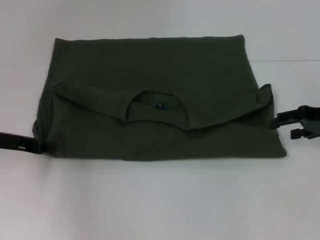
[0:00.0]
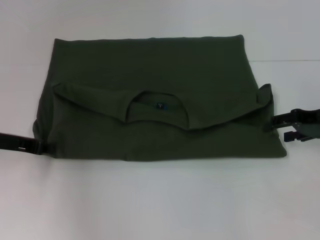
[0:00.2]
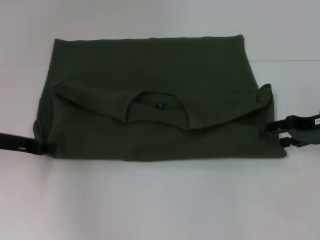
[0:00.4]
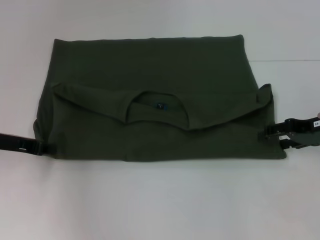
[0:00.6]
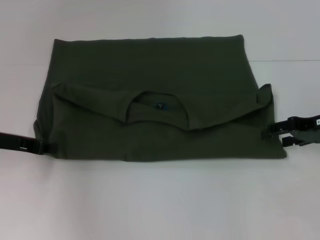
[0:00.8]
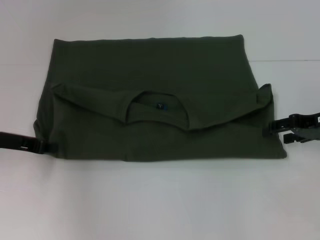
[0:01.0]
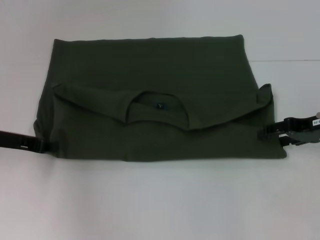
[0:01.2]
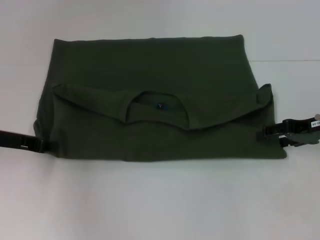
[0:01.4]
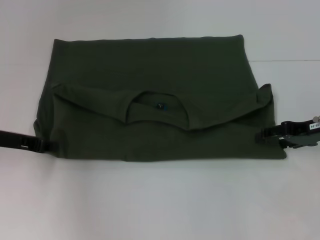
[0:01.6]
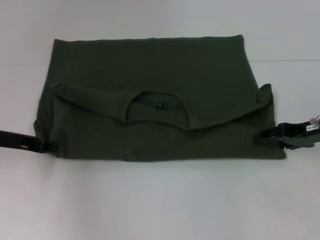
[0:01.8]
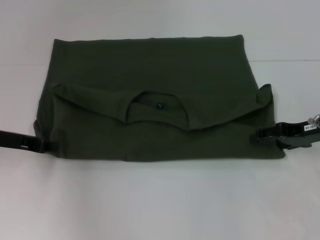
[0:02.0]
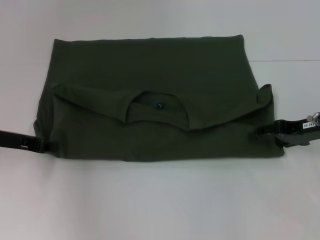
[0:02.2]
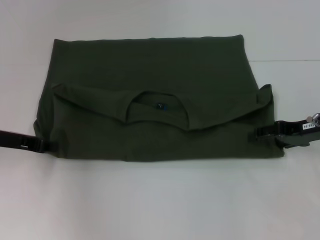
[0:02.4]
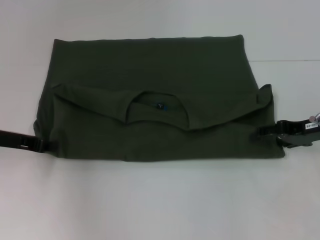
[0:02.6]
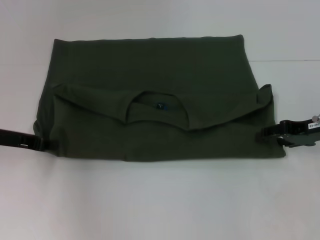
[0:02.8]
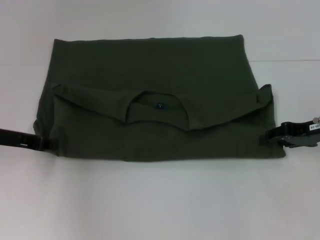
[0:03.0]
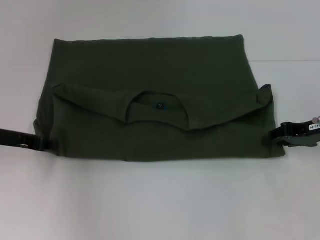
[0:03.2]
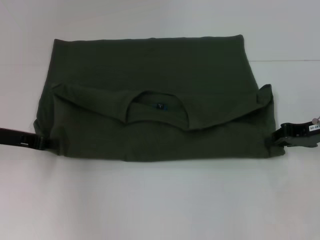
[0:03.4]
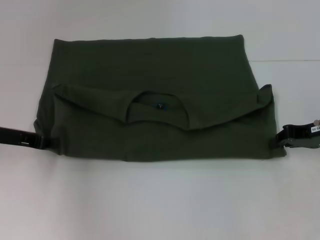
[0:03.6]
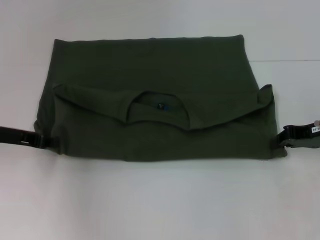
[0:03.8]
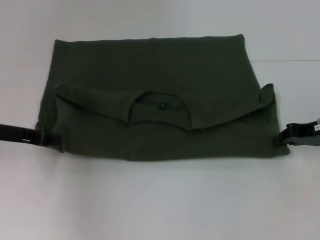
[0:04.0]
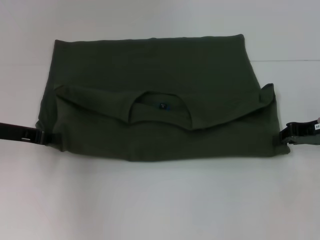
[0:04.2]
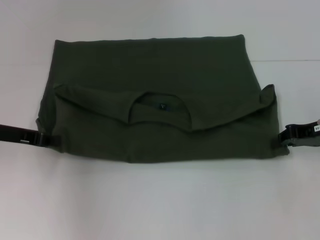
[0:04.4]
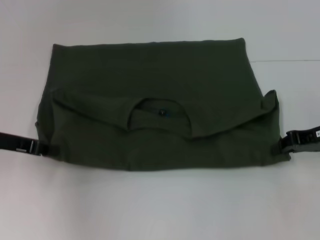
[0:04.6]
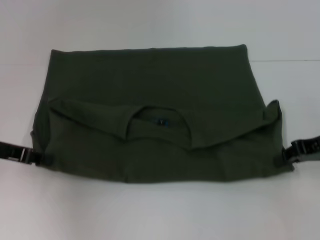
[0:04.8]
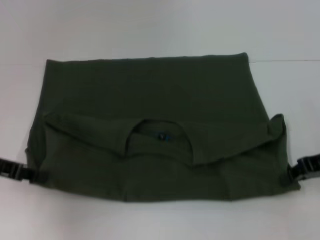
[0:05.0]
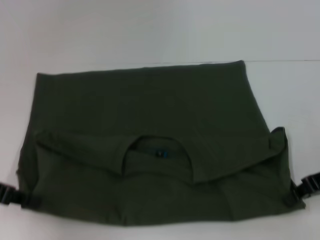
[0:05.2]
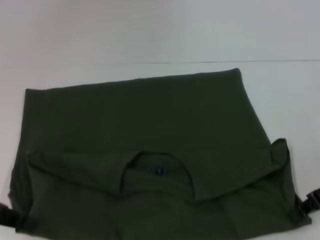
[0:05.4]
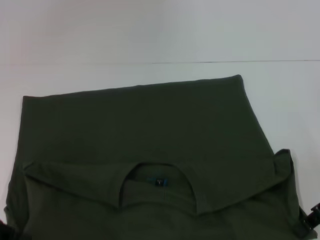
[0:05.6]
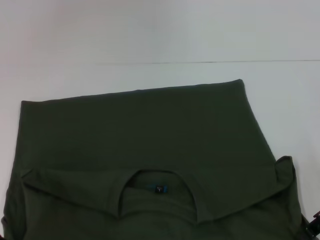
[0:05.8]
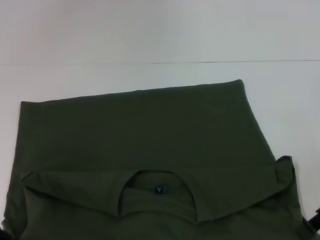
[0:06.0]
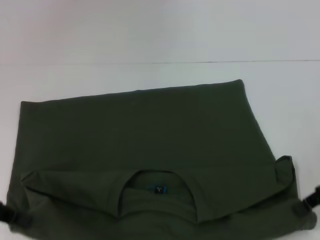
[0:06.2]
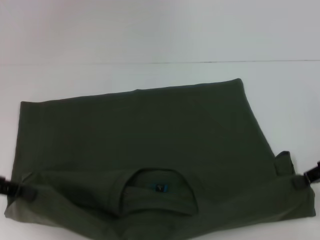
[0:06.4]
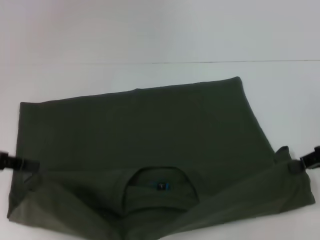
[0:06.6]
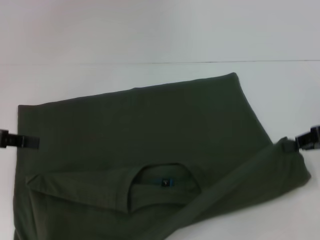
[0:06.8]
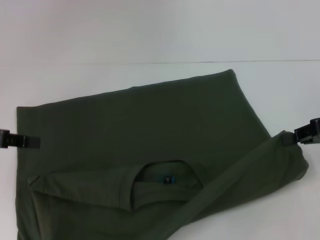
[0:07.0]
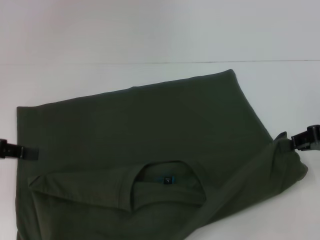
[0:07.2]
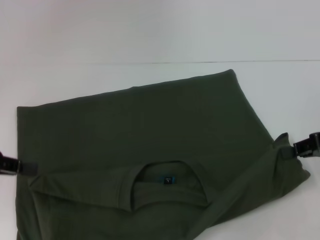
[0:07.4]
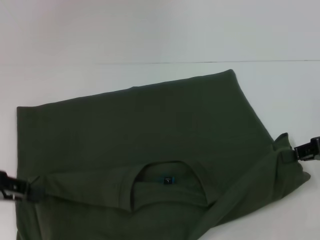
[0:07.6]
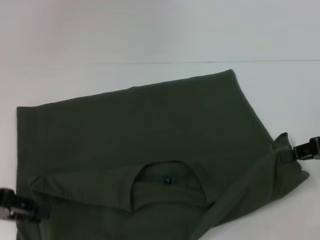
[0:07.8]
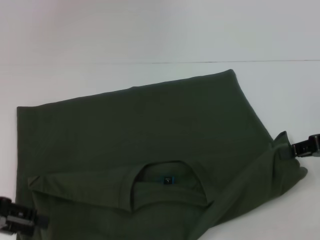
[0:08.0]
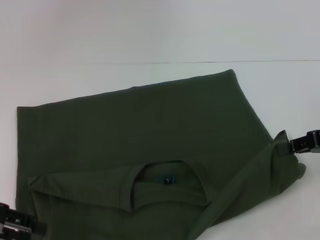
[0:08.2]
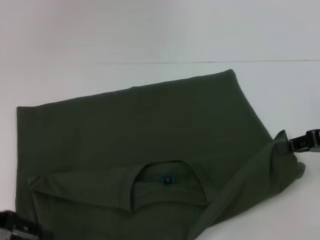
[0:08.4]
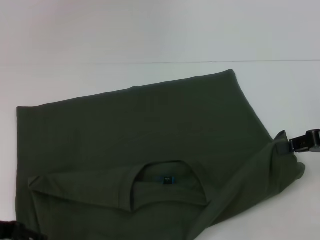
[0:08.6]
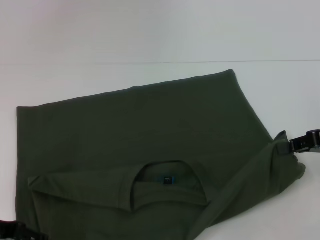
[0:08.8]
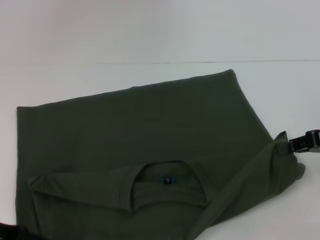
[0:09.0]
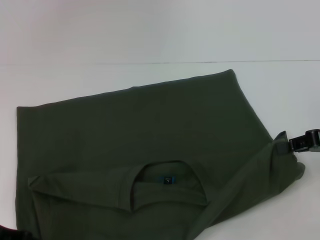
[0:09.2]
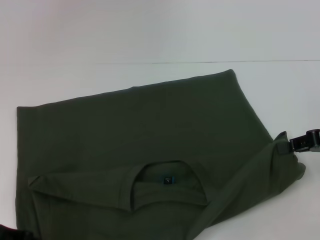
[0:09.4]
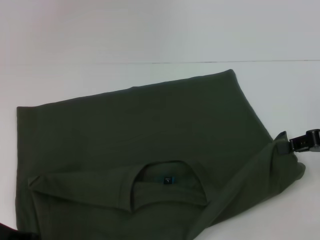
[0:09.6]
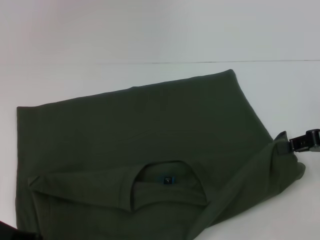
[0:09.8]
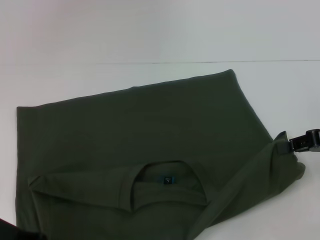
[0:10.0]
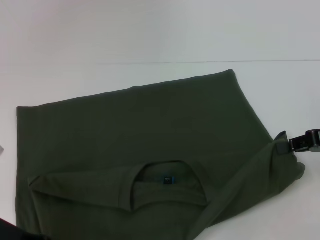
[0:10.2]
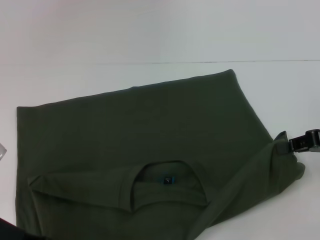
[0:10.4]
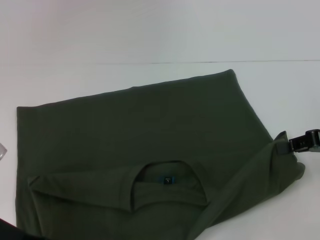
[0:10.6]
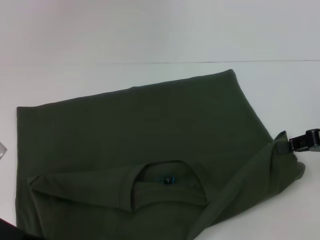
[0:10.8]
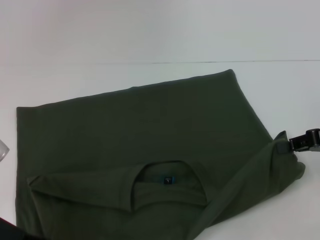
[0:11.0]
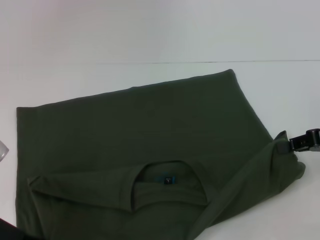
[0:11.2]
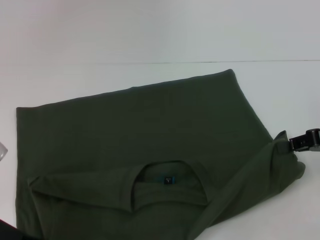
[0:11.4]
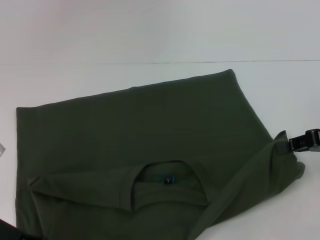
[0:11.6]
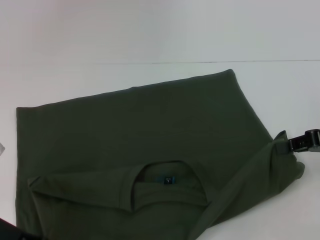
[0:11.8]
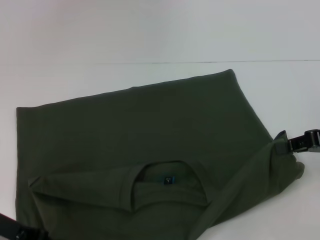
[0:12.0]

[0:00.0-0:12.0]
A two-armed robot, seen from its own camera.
Step, 0:00.0 to 0:05.8: Pull the clothes with your left hand.
Step, 0:00.0 to 0:05.8: Pull the clothes with your right hand.
0:00.0 to 0:01.6: The grippers stay close to where they were, moving slightly.
0:01.6 to 0:03.0: Neither gripper changes place.
0:03.0 to 0:04.4: The right gripper closes up.
0:04.4 to 0:06.0: Both grippers travel together backward, about 5 cm.
0:07.6 to 0:09.0: The left gripper ends up some 5 cm from where it was, and opens up.

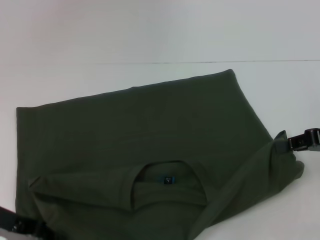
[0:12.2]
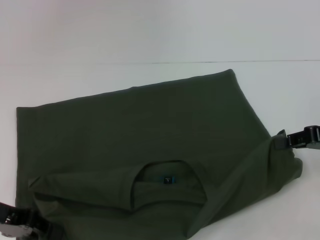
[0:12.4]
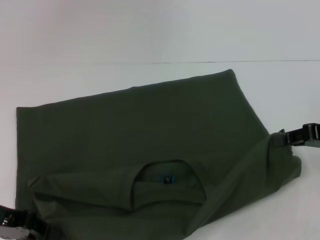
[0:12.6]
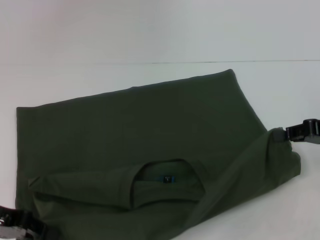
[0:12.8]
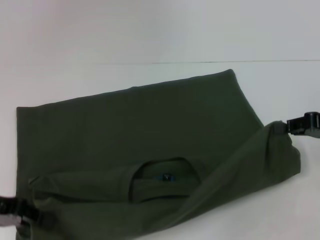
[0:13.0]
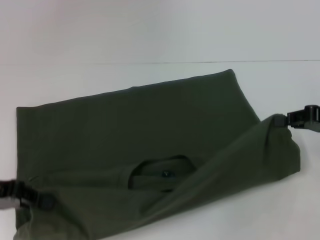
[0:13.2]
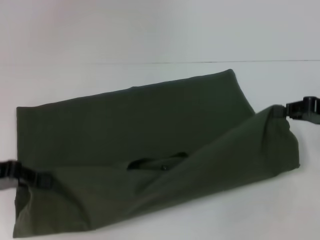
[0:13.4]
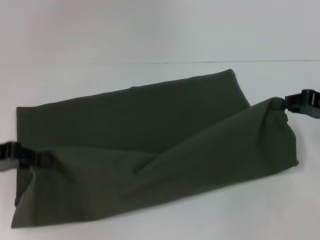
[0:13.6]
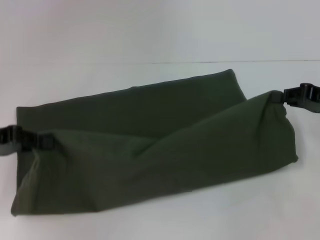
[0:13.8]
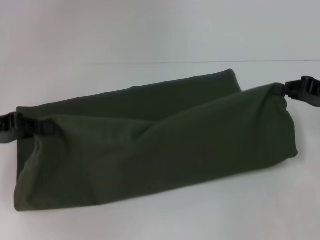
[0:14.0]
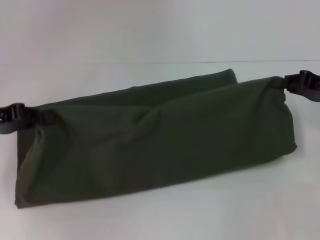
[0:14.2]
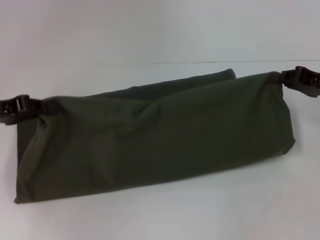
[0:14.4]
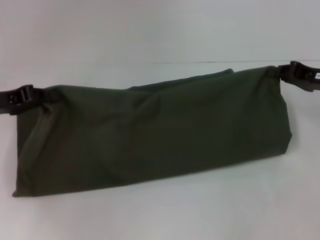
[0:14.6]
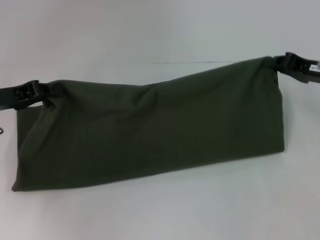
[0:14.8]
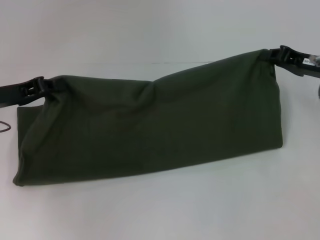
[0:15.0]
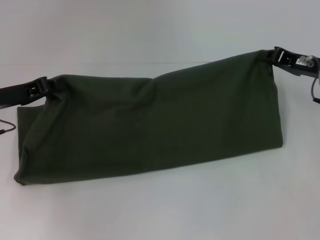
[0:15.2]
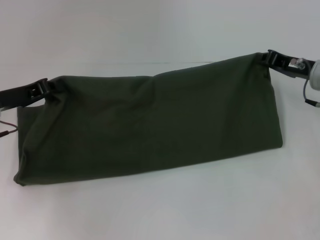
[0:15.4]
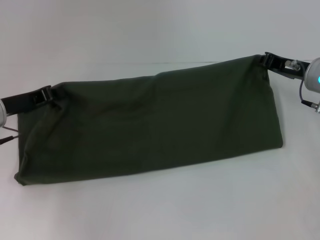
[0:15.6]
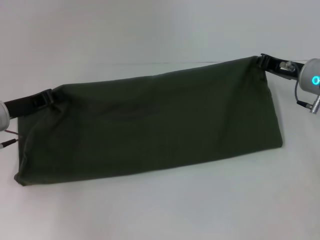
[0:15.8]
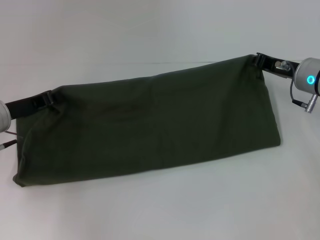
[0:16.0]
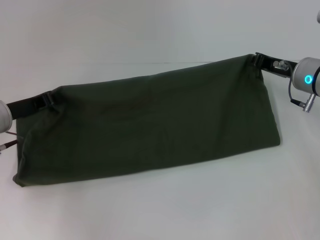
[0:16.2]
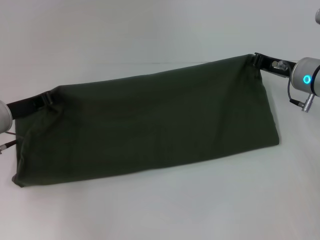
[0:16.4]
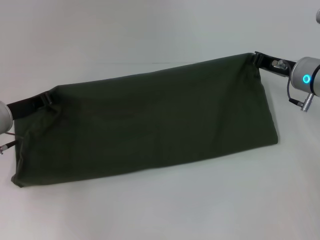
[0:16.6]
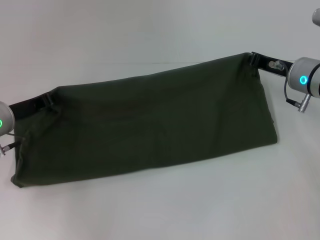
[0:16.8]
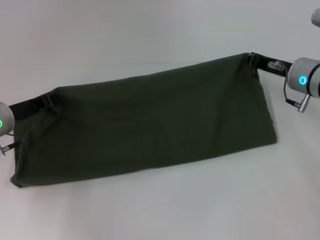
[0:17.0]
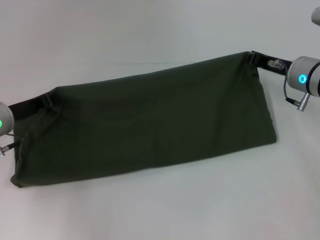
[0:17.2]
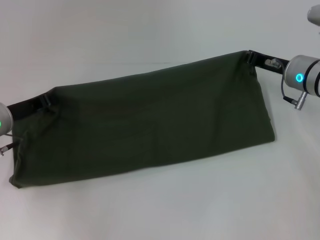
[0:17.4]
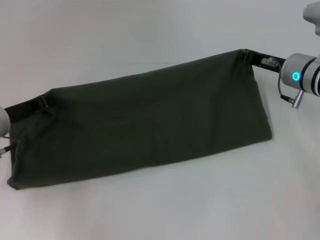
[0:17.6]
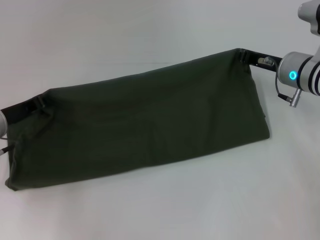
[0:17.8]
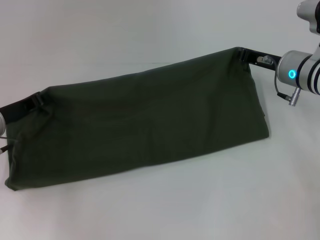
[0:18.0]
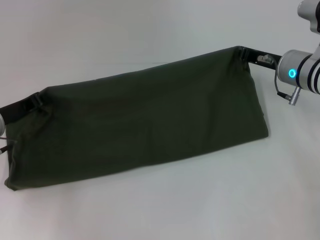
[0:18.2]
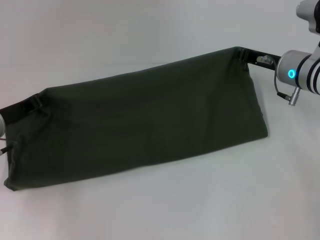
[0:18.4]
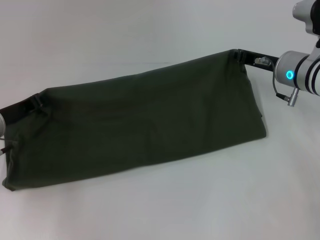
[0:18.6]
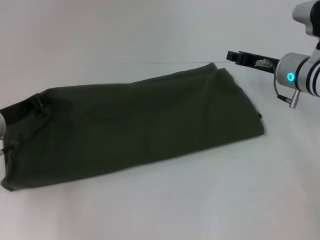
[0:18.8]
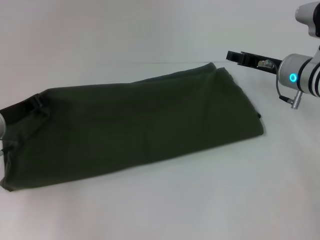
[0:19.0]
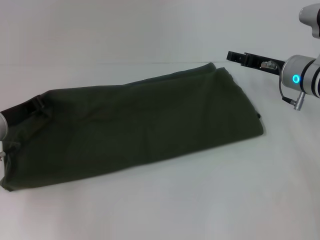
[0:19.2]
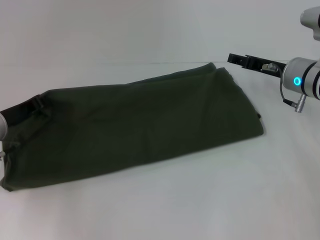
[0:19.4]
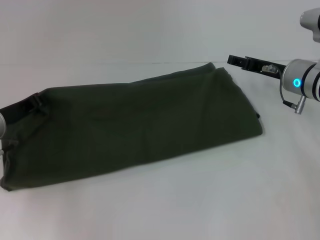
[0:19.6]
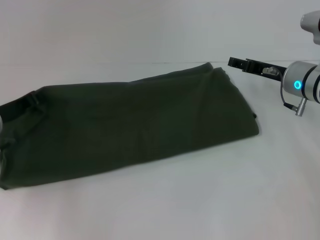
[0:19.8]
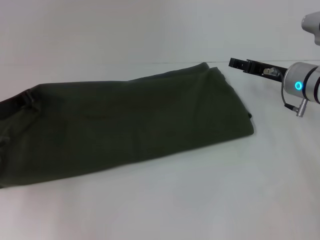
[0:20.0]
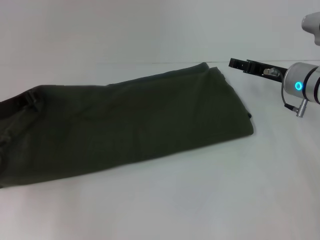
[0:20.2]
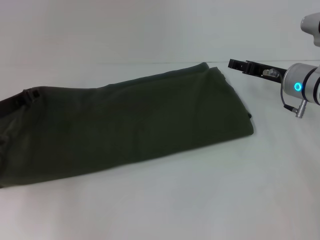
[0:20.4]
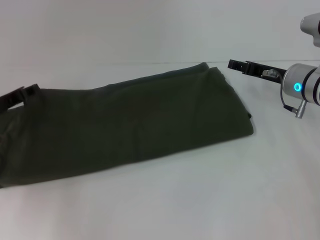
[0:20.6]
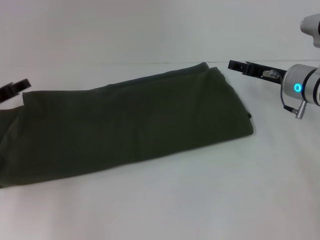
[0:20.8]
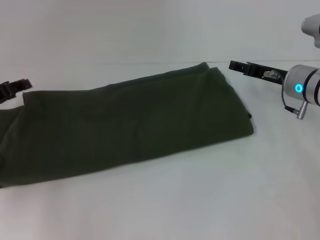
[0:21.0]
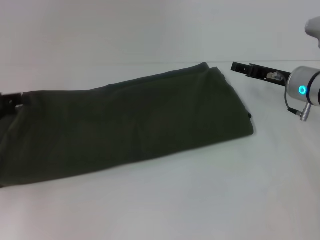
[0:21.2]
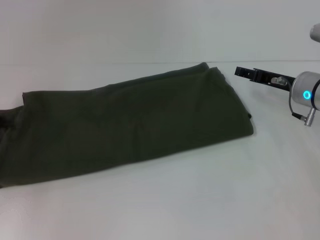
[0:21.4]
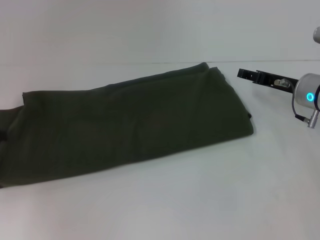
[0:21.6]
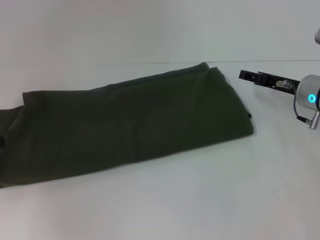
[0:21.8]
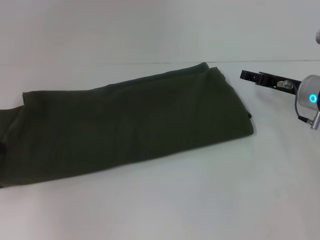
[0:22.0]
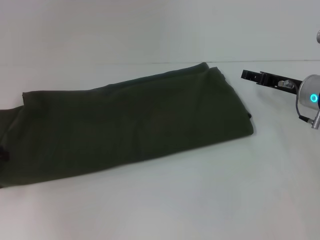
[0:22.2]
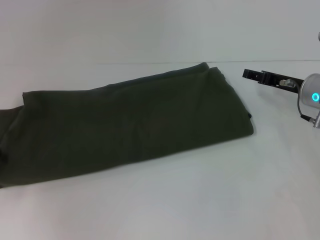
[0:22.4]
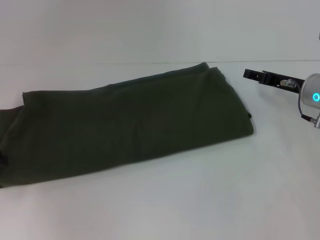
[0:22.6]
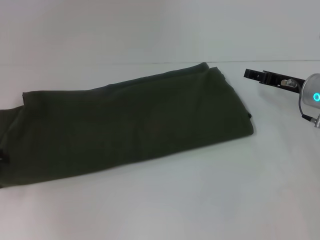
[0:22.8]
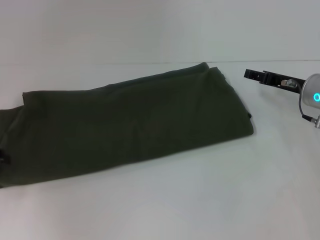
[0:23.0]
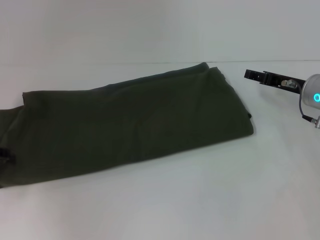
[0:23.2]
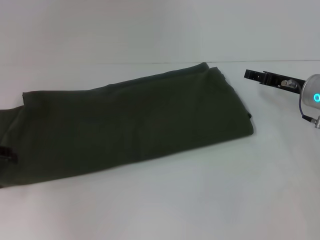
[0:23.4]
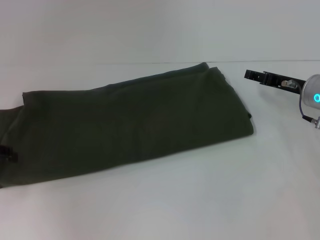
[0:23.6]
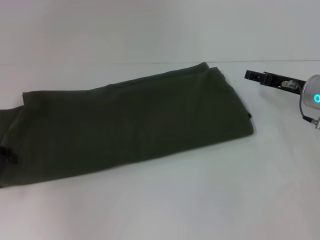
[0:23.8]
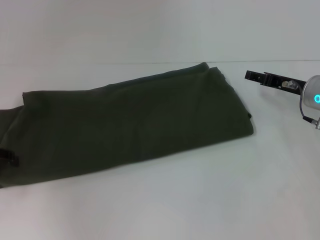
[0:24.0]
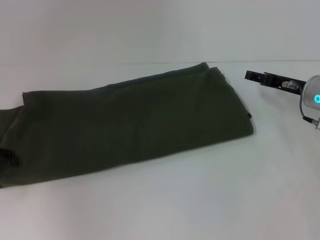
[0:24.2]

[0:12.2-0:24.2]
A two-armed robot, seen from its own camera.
Step, 0:12.2 to 0:20.6: Fold the clothes with your right hand.
0:12.2 to 0:13.8: The left gripper changes place by roughly 5 cm.
0:13.8 to 0:15.2: Both grippers move forward, about 5 cm.
0:15.2 to 0:16.6: The grippers make only small movements.
0:16.6 to 0:18.2: The grippers make only small movements.
0:18.2 to 0:19.8: The right gripper opens its fingers.
0:19.8 to 0:21.2: The left gripper shifts some 10 cm to the left and upward, and opens.
0:22.6 to 0:24.2: The grippers make only small movements.
